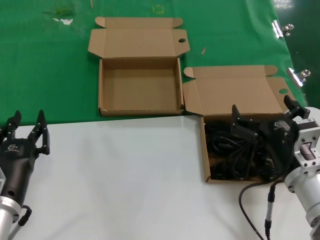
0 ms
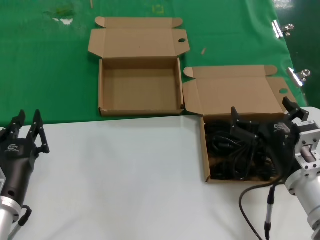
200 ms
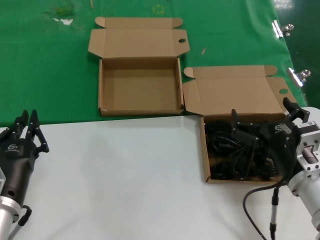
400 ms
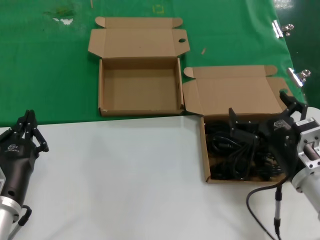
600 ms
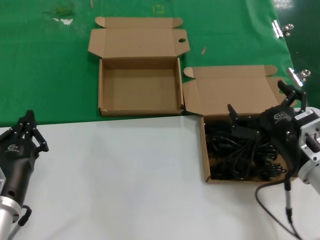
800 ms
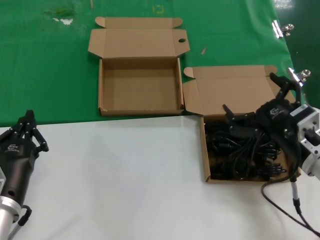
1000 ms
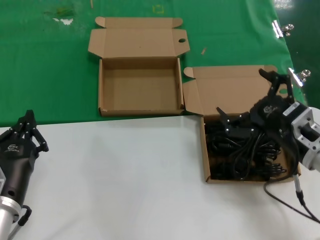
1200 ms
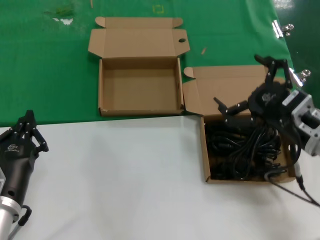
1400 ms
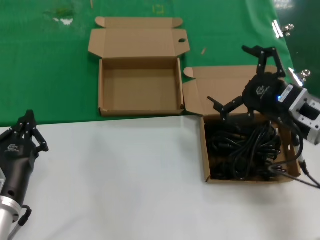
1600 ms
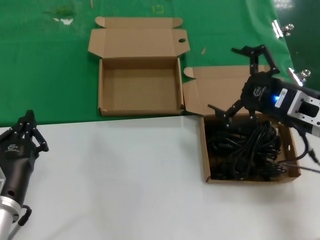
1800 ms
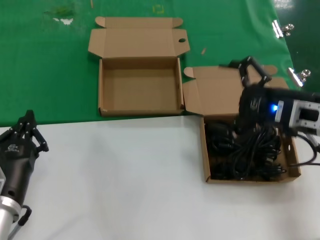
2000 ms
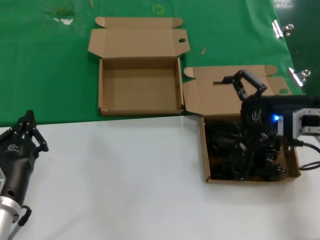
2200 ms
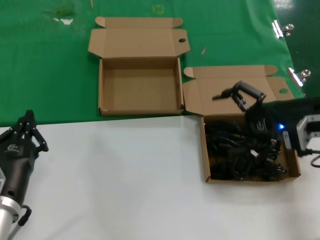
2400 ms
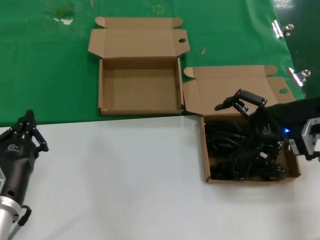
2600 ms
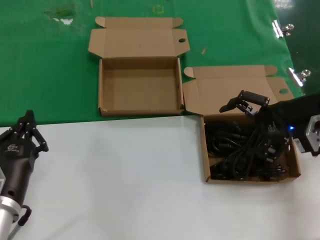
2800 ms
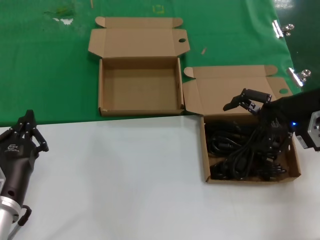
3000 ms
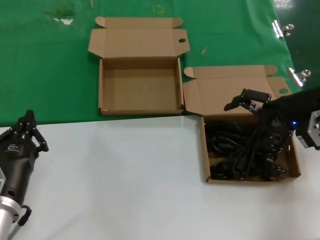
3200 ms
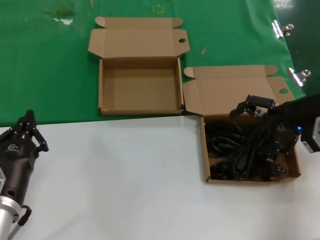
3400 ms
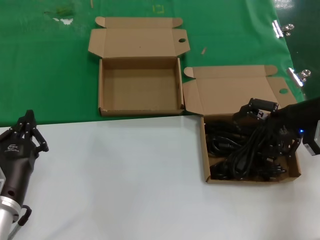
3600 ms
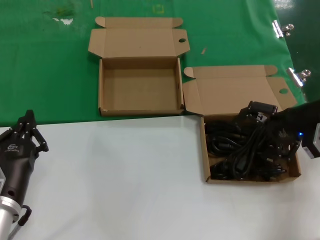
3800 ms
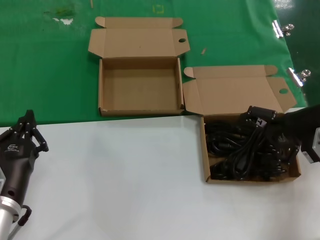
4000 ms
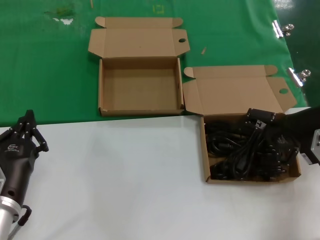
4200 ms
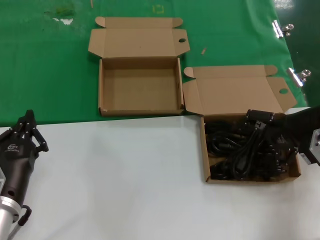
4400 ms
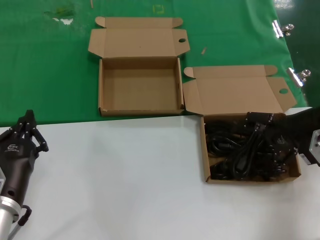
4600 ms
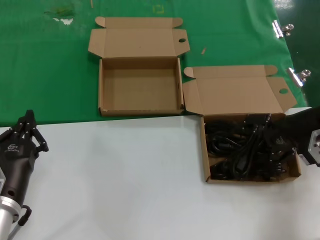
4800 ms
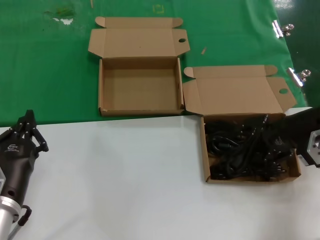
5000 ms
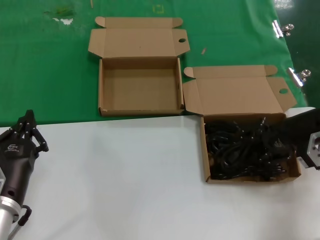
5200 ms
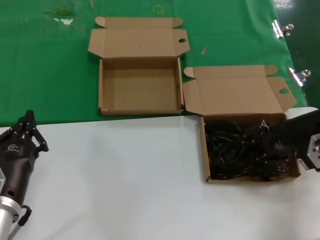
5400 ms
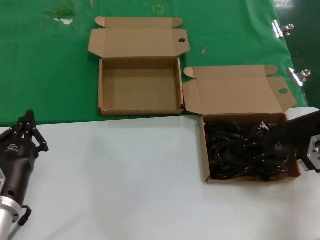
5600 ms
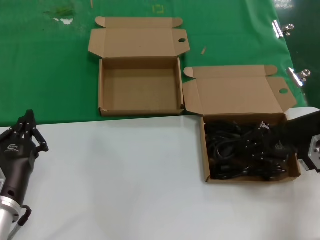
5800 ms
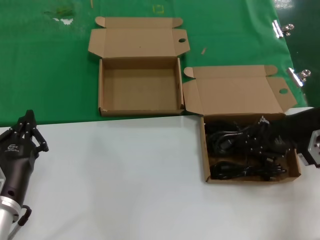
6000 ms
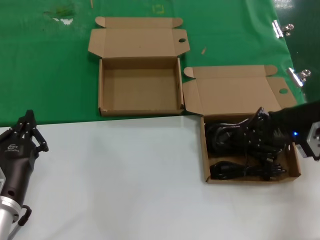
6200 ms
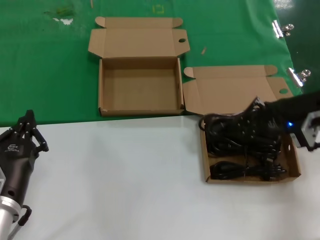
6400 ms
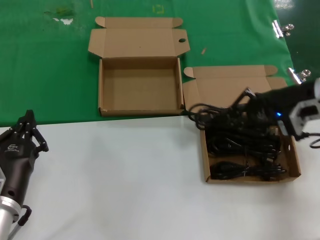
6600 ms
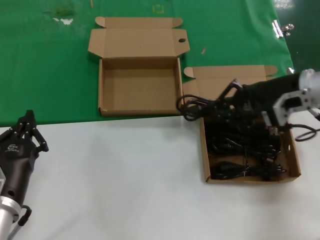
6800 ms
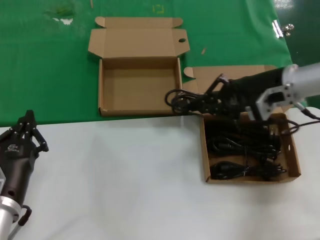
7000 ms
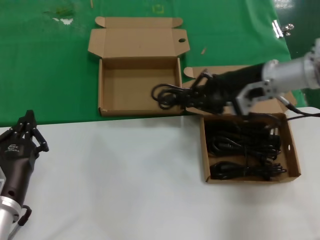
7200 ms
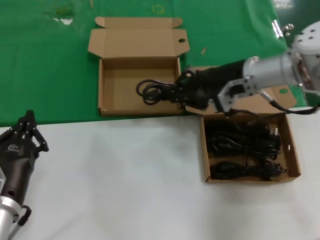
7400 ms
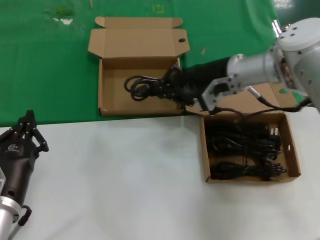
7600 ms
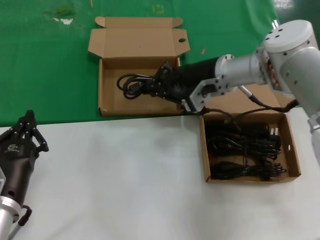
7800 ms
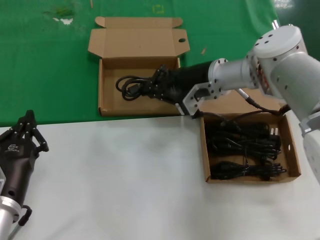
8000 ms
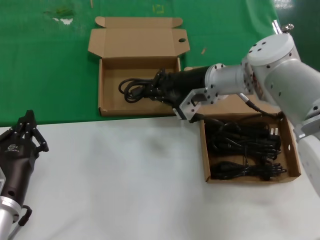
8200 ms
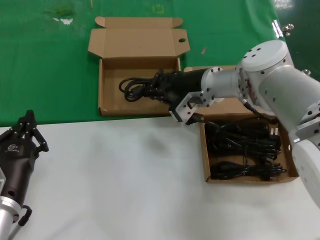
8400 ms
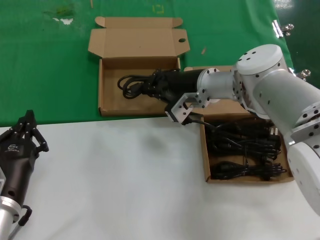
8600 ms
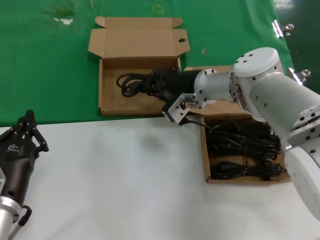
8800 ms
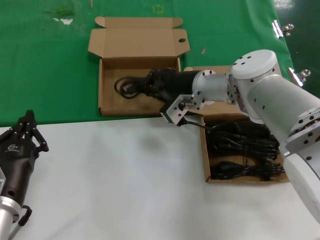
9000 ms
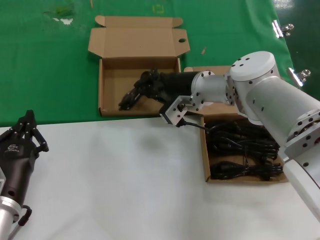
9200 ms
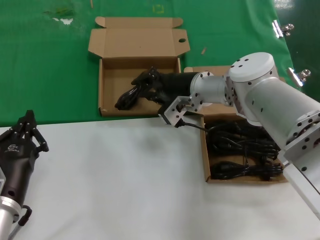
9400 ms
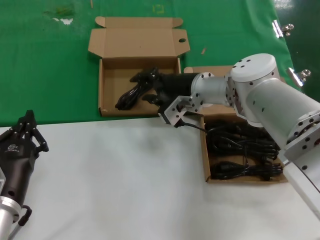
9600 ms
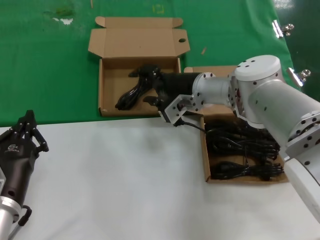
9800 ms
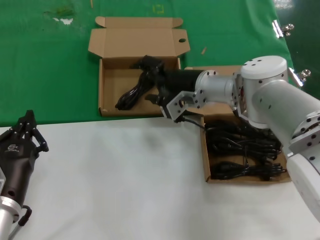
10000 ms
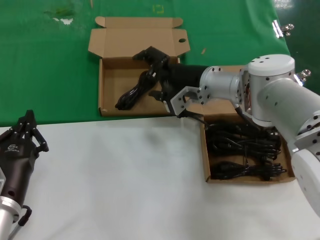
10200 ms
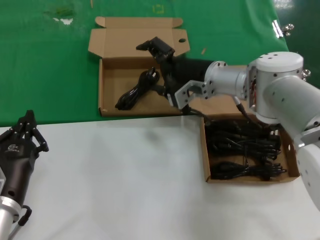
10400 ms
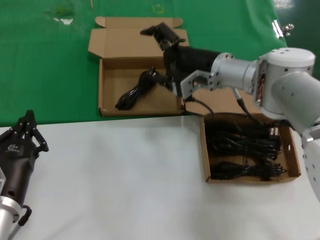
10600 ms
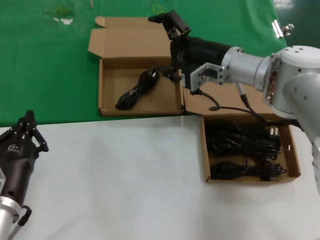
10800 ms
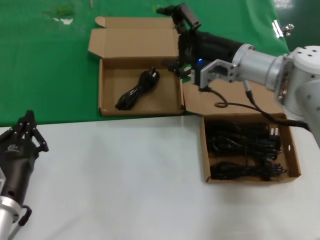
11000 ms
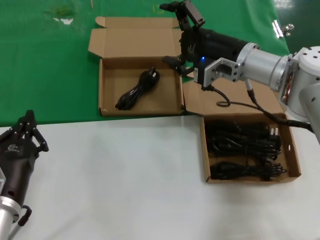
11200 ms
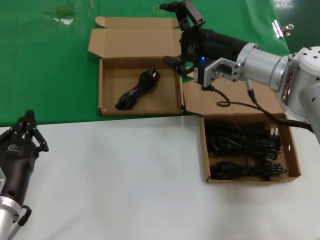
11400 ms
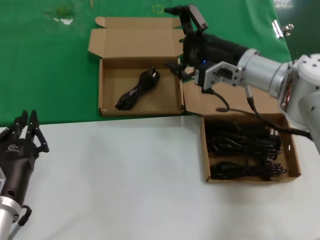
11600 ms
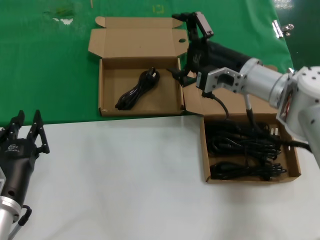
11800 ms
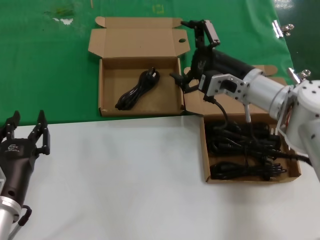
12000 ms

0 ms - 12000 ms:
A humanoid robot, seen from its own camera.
Task of the whole recording: take the parts from the box containing them and put them into an empty box.
Step, 0 ms - 5400 ms: Grasp the data cable.
Step, 5600 ms - 9400 ms: Place the data cable in the another box.
0 ms - 1600 ms: The right hand heads upward, to the right and forward, covering roughly 10 cm.
1600 ms - 3000 ms: The right hand goes about 10 cm forward, to the right and upward.
3000 ms - 4400 ms: There are only small adjustments of the hands.
4400 ms - 6000 ms: Neither hand changes place.
6000 ms - 7600 ms: The right hand goes approximately 20 cm to the left and forward.
7600 ms - 9000 ms: The right hand goes some 5 cm to the left.
9000 ms - 10400 ms: The hands make only small movements.
10400 ms - 12000 ms: The right hand travels to the right by some 5 cm.

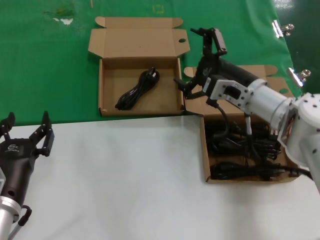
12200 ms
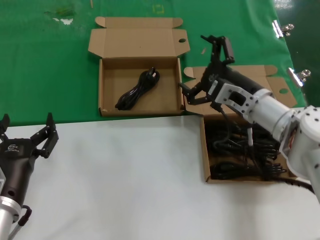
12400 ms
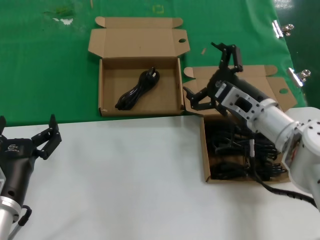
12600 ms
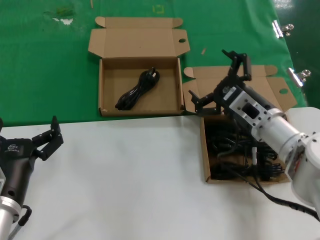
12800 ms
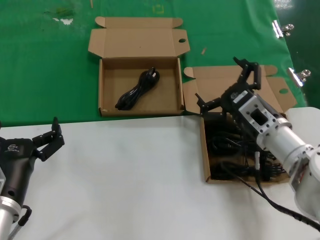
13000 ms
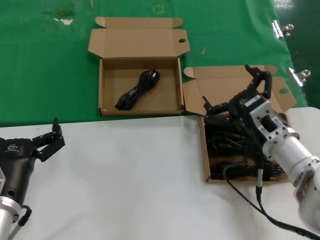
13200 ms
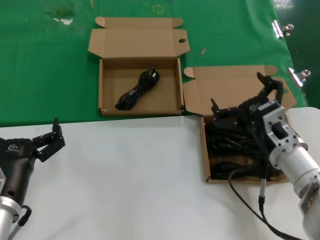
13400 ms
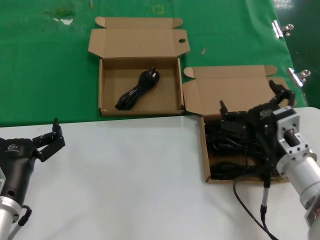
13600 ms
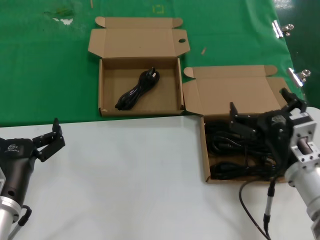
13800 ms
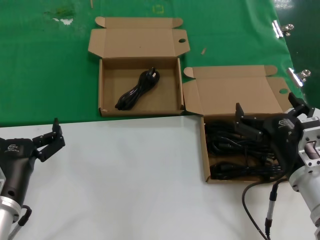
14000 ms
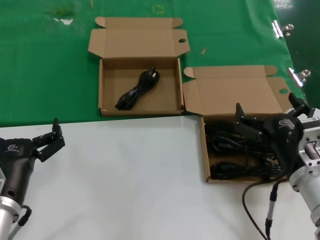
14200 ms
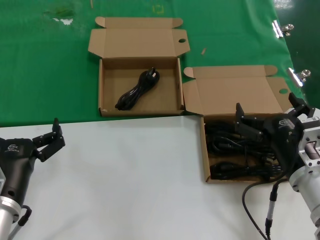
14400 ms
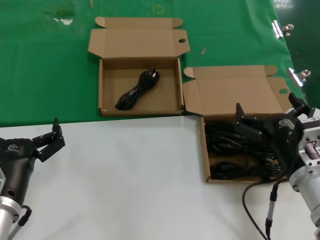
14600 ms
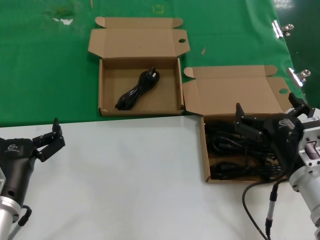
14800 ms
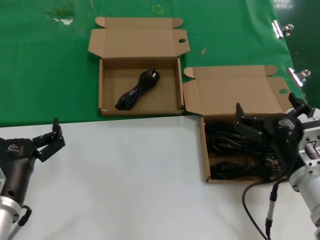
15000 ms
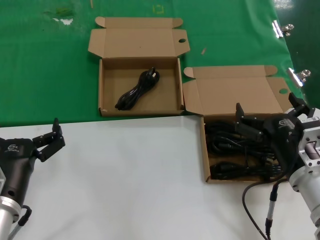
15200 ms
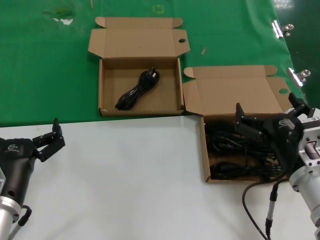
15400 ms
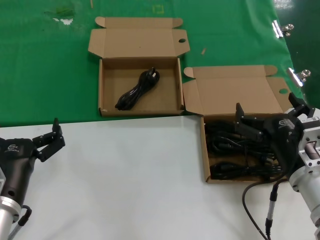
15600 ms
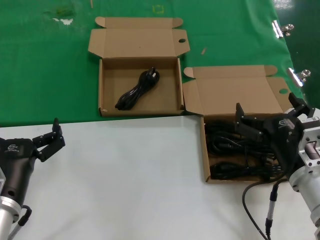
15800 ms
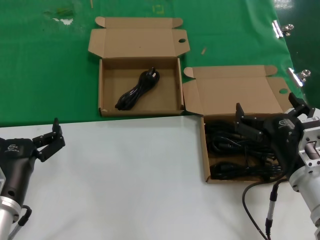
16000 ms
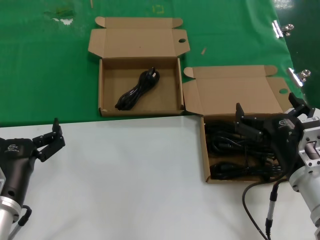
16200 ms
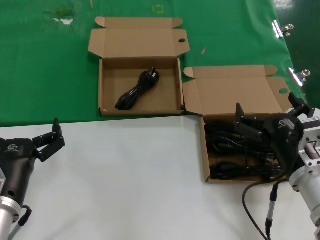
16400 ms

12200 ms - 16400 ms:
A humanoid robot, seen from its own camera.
Task of the whole recording: take the parts from the box containing them and put them into an empty box.
12200 ms - 13600 ms: The right hand goes about 15 cm backward and downward.
13600 ms - 15000 ms: There are only small adjustments of the hands.
15000 ms - 16400 ms: Both hands stay put.

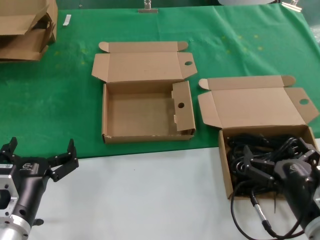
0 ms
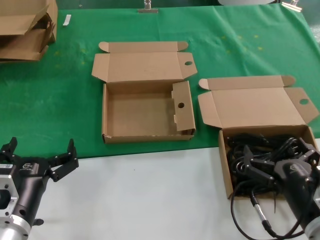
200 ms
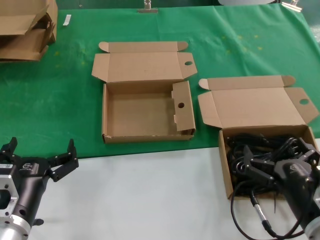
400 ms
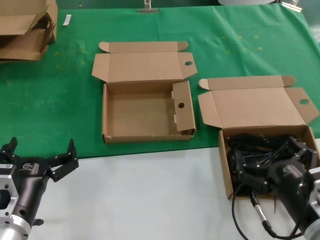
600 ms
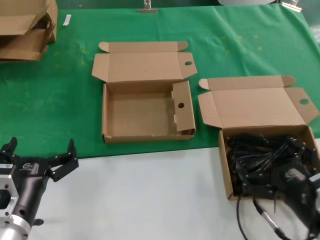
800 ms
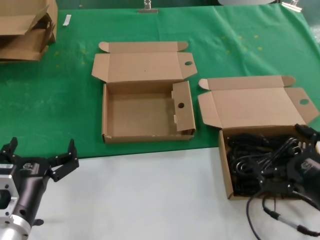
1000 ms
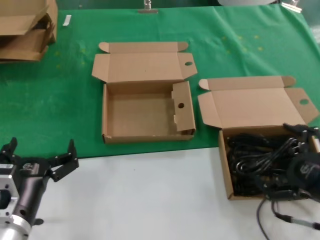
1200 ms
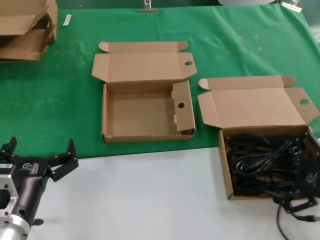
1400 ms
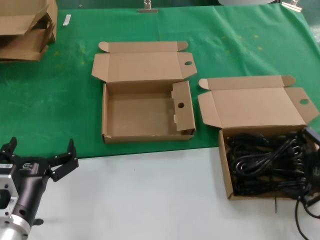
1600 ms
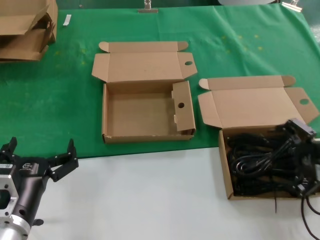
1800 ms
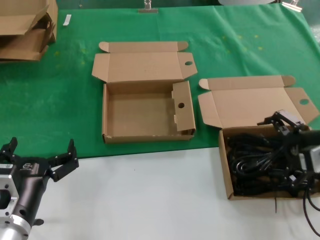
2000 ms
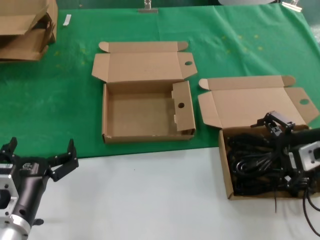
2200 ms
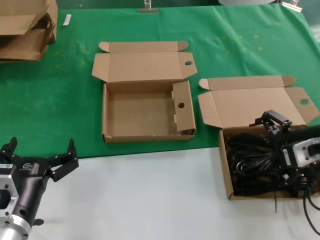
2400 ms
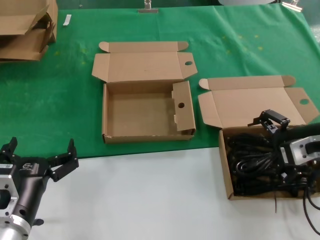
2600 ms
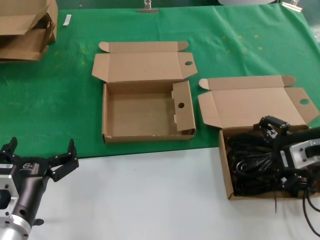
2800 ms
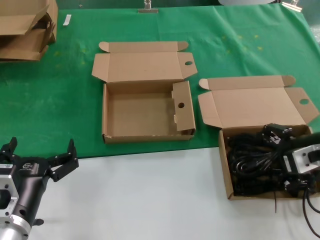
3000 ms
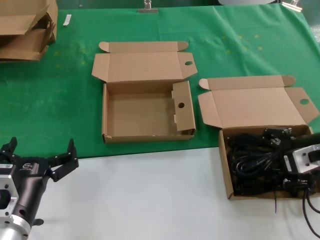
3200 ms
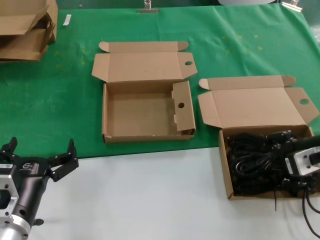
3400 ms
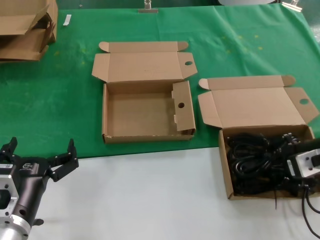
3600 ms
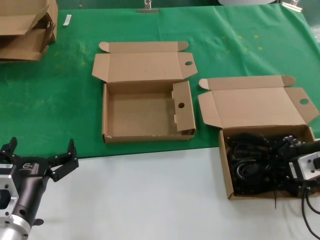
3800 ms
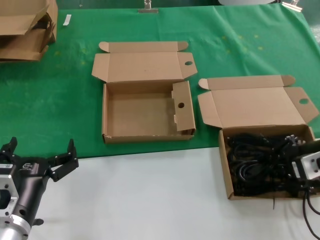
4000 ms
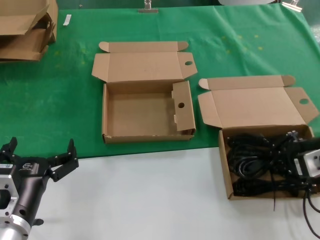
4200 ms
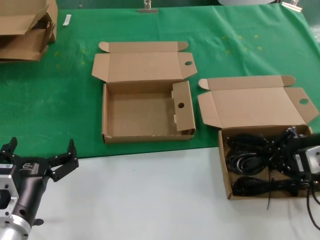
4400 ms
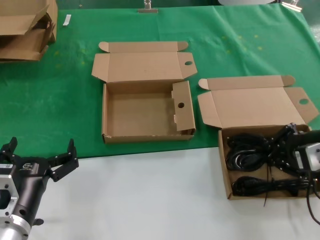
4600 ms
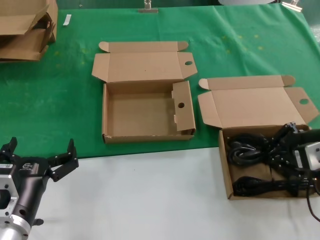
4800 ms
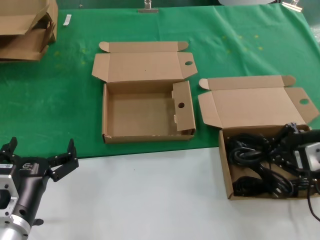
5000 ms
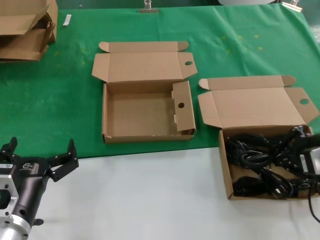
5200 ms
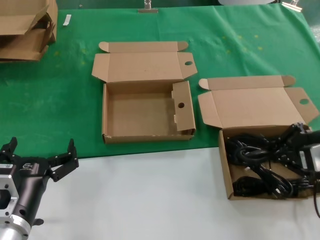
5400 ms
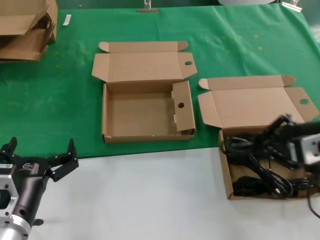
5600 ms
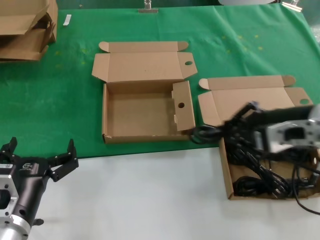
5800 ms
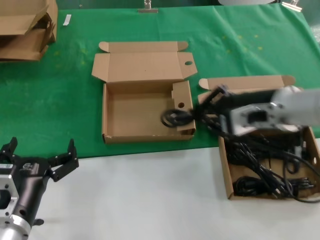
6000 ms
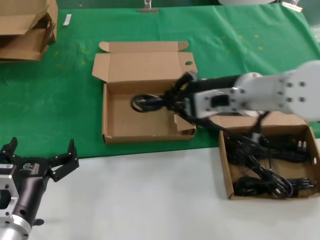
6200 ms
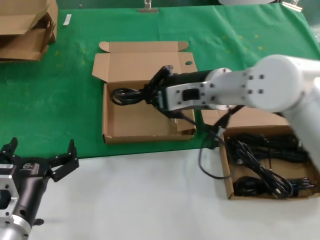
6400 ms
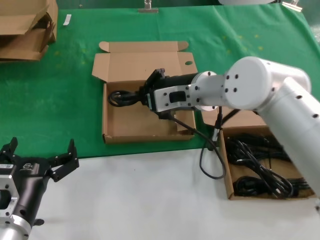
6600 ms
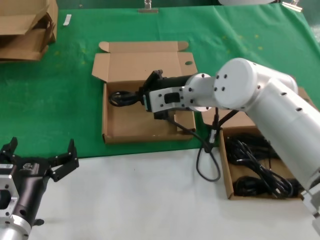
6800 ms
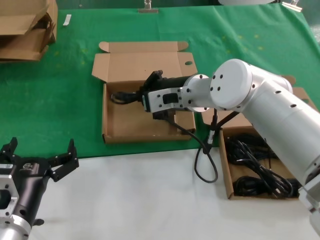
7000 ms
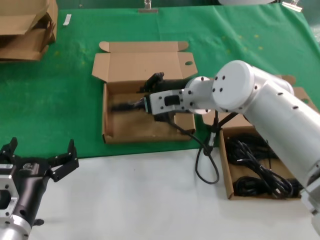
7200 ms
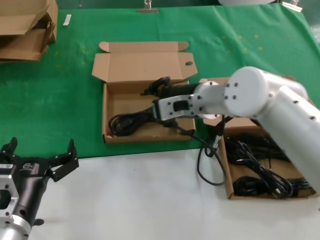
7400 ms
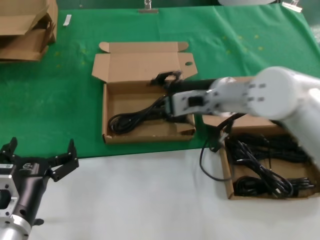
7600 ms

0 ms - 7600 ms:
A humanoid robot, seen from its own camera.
Task of the whole recording: take the parts from the box containing them and put them into an empty box.
Step, 0 ms - 3400 ms: Grasp the data cable.
Step, 3600 ms - 7200 ms: Place the data cable in the another box.
0 ms - 1600 ms: The right hand shifts roughly 20 cm to the right, upward and forward.
1600 ms - 3000 ms: The right hand shifts some 10 cm to the left and forward.
3000 ms - 4600 ms: The hands stay close to where they were, moving slightly.
4600 ms - 6000 ms: The right hand moves to the left, roughly 10 cm.
6000 ms - 7600 ms: The right hand shifts approximately 10 cm to the left and forward.
